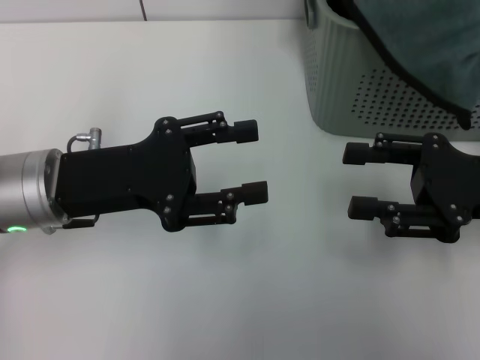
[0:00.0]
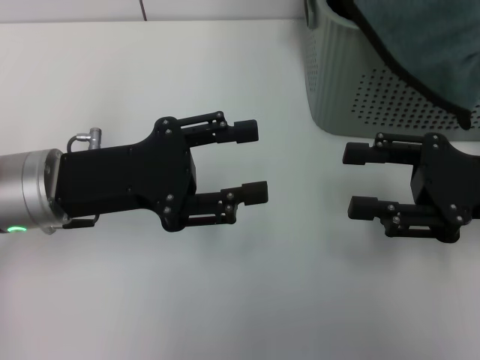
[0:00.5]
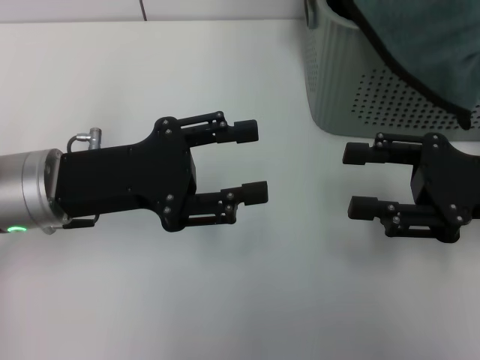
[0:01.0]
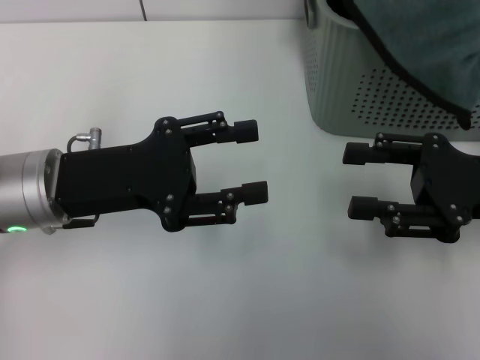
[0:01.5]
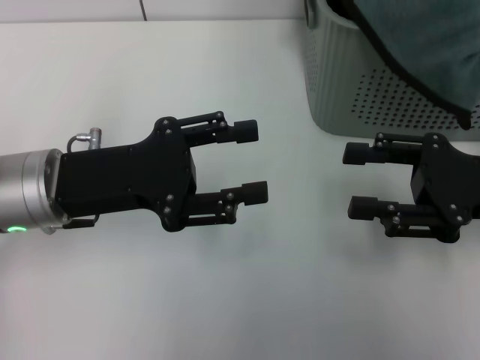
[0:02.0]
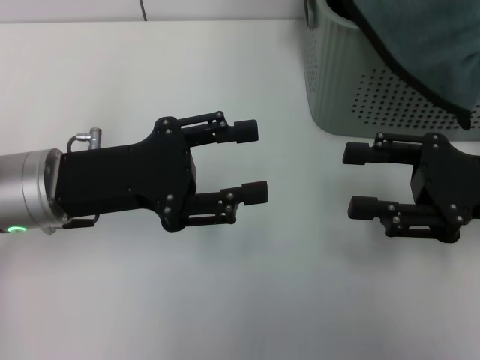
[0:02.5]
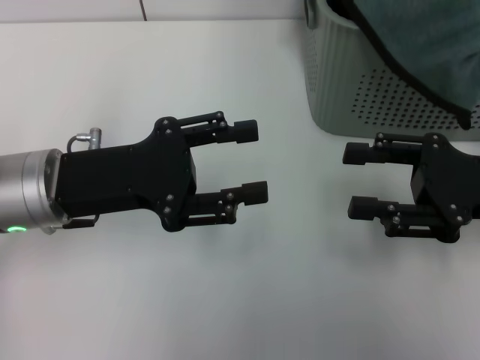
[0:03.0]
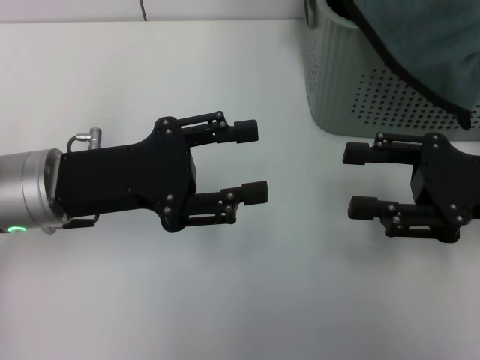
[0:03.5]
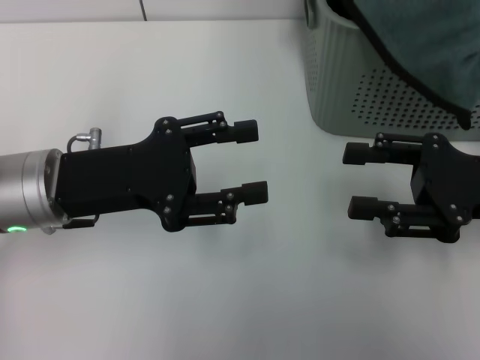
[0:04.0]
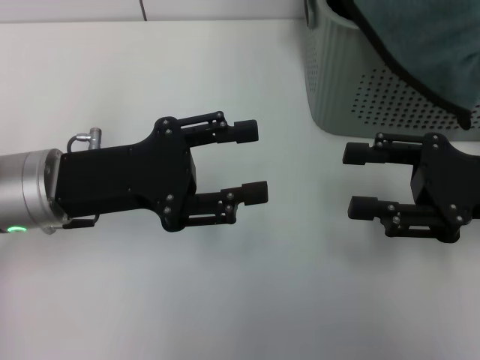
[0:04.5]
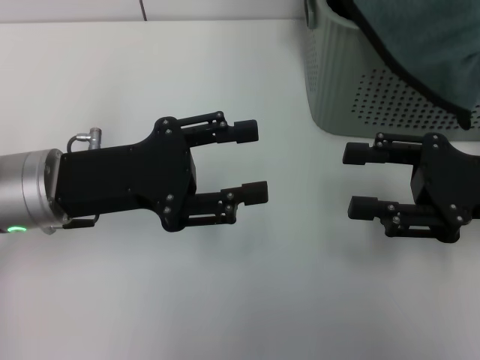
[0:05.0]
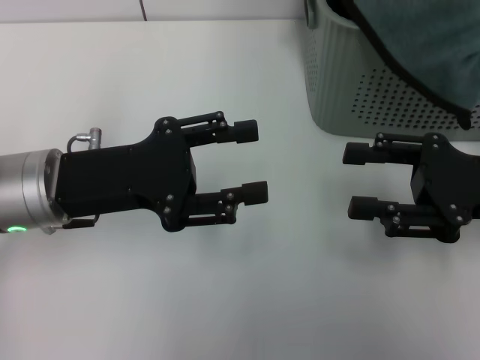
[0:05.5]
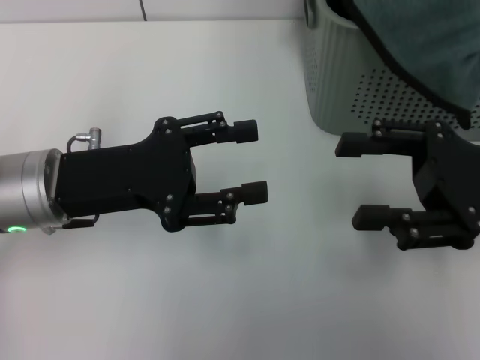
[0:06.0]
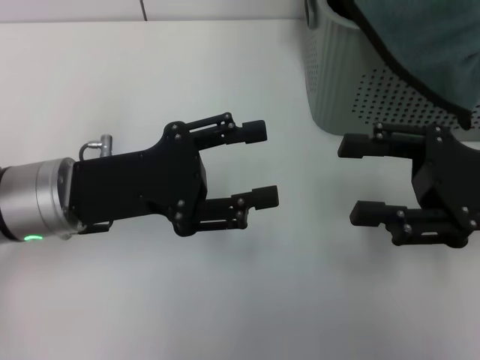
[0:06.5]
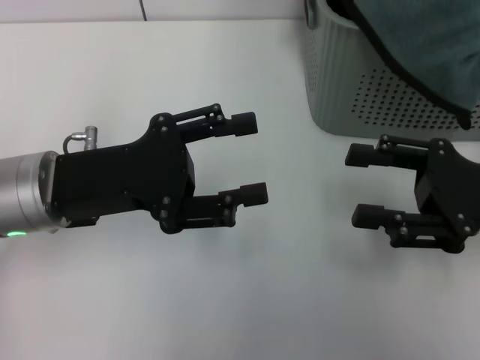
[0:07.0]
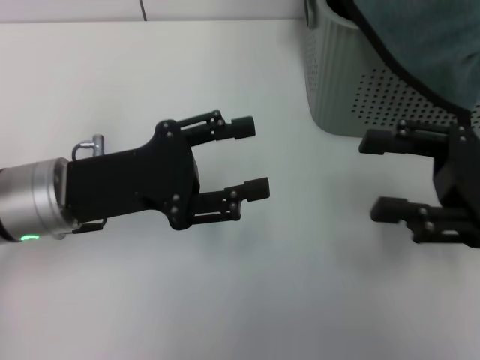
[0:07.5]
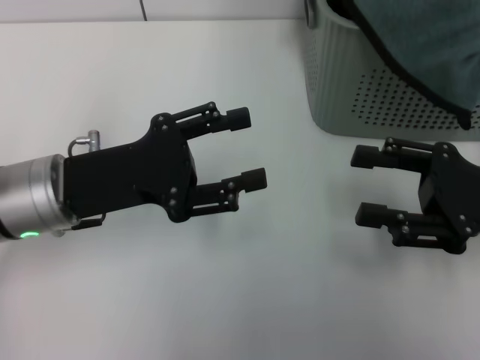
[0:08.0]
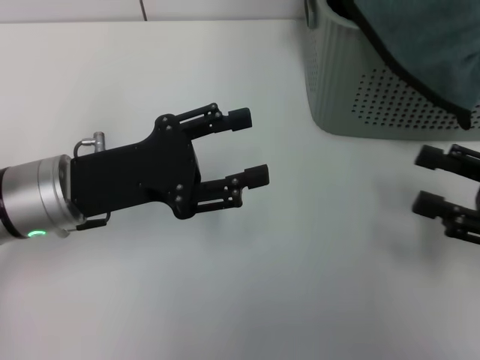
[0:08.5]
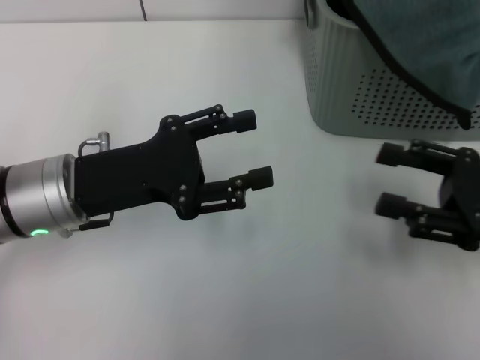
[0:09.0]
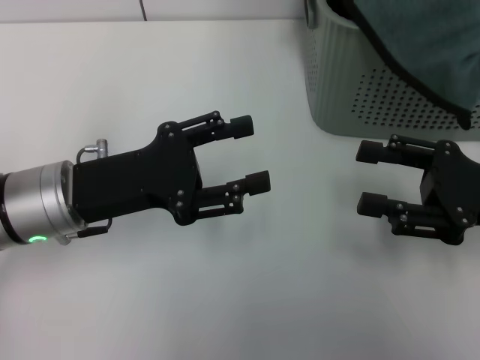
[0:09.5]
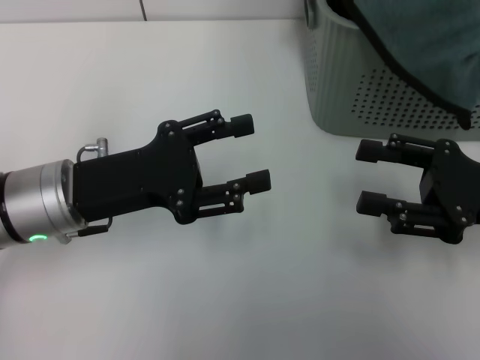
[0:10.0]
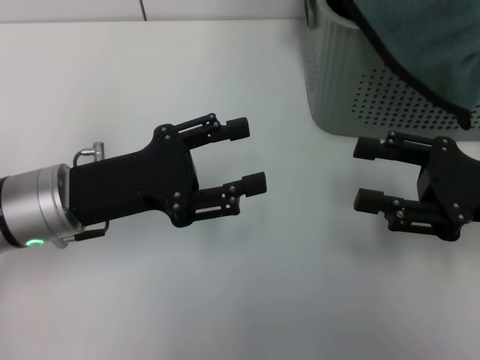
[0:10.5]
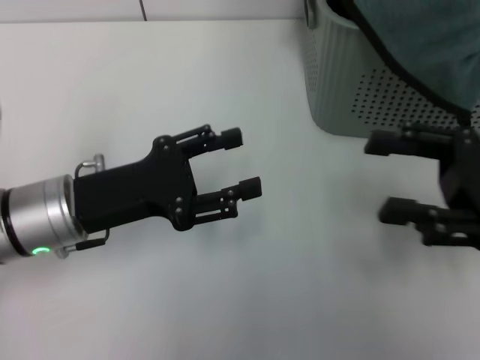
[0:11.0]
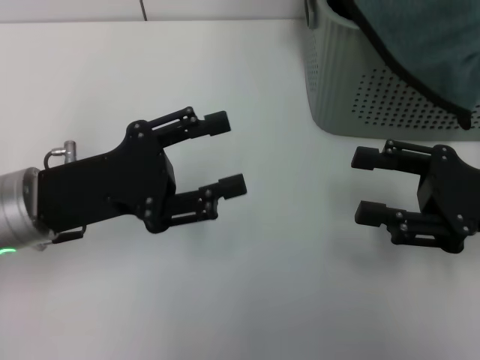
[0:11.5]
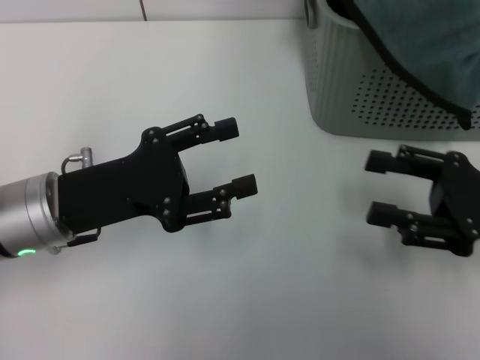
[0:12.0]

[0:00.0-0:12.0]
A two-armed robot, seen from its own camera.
Task of the whole recording: pick up the towel from the storage box and lay it flat on the table.
0:00.0 to 0:04.0: Both grippers stay put.
0:04.0 to 0:08.0: There are only small adjustments of the grippers.
0:08.0 to 0:12.0: The grippers make only small movements.

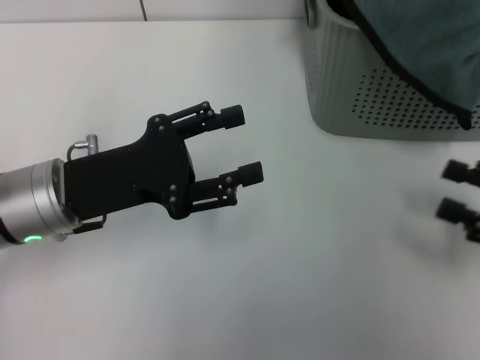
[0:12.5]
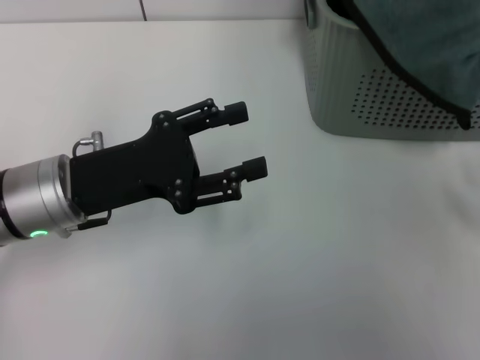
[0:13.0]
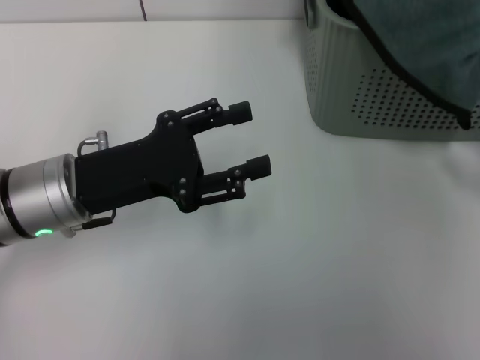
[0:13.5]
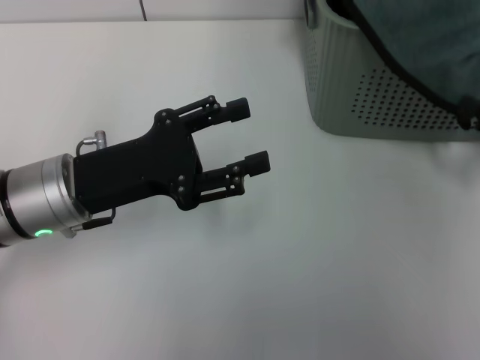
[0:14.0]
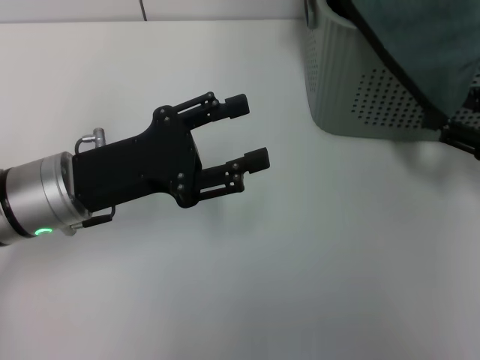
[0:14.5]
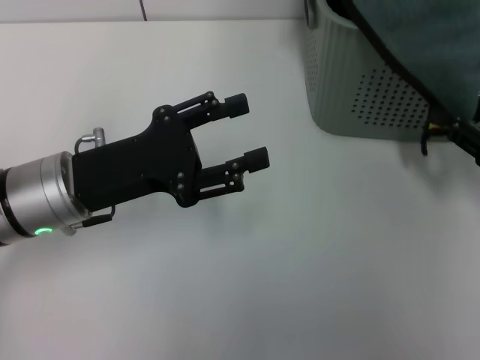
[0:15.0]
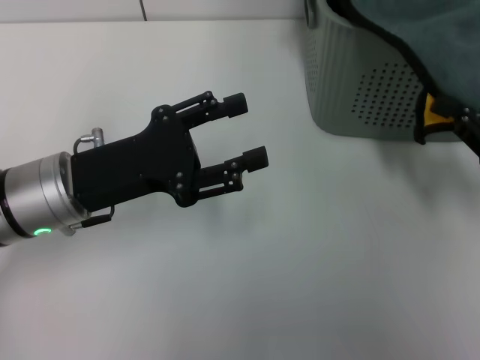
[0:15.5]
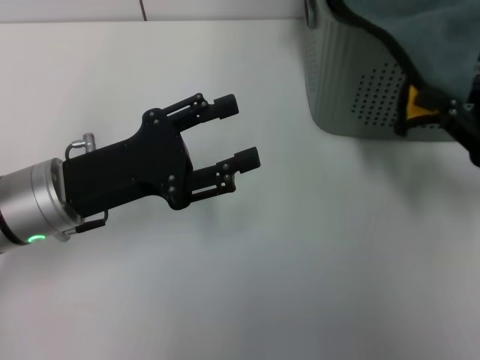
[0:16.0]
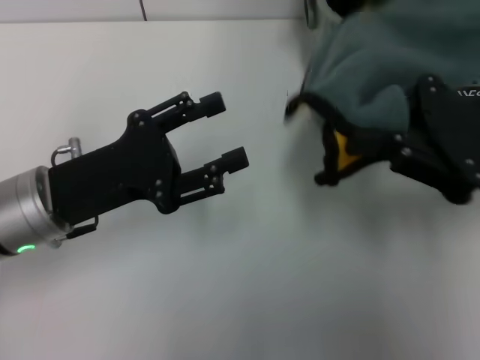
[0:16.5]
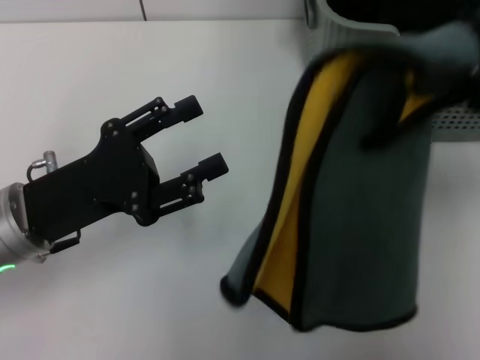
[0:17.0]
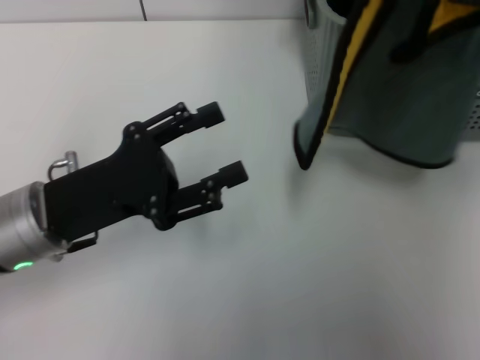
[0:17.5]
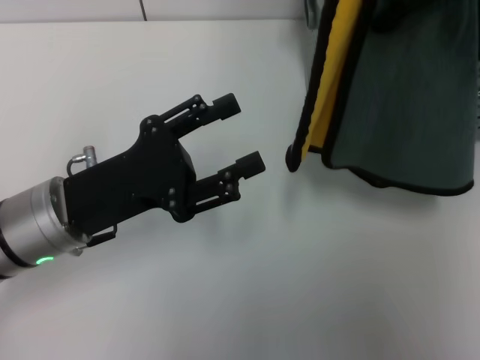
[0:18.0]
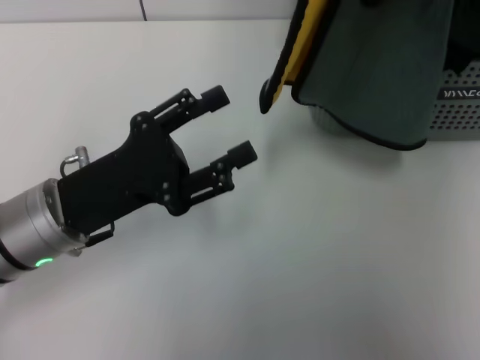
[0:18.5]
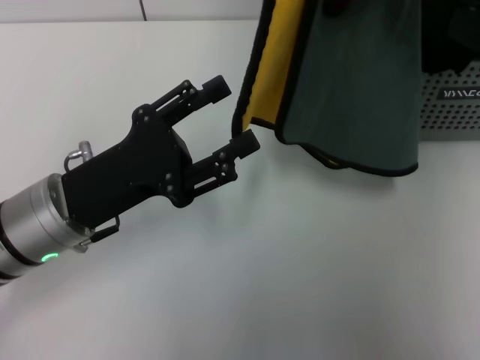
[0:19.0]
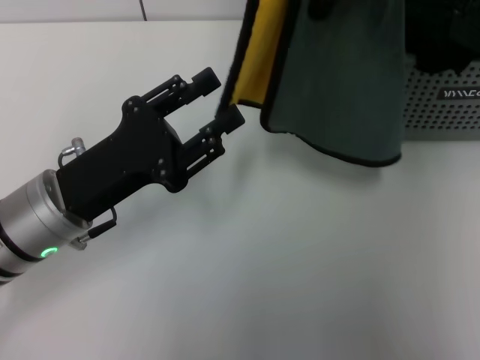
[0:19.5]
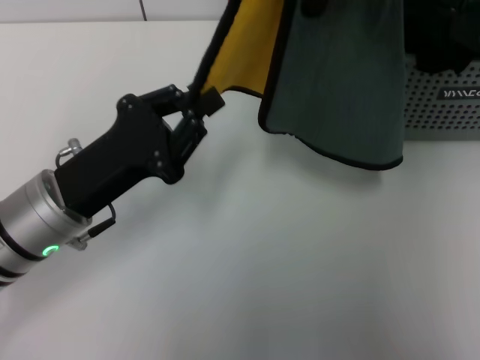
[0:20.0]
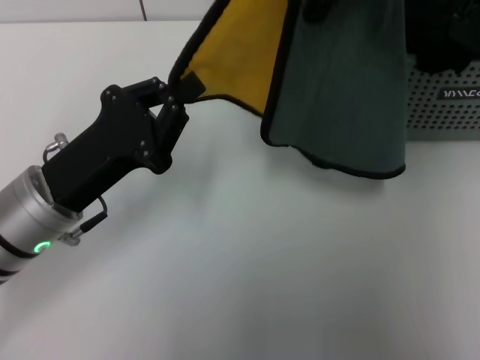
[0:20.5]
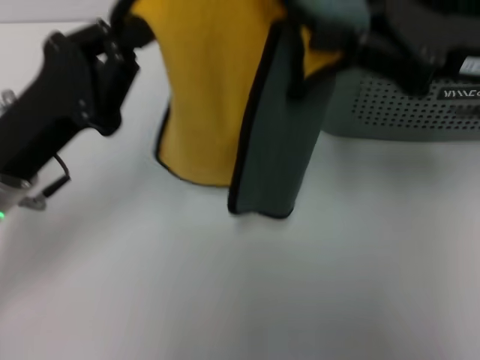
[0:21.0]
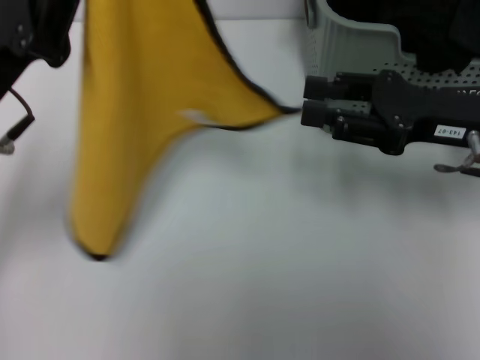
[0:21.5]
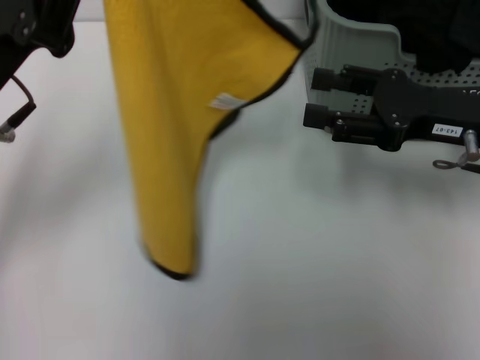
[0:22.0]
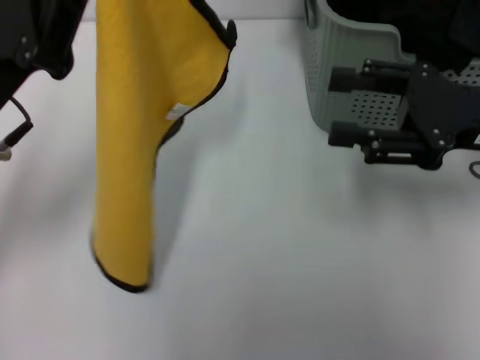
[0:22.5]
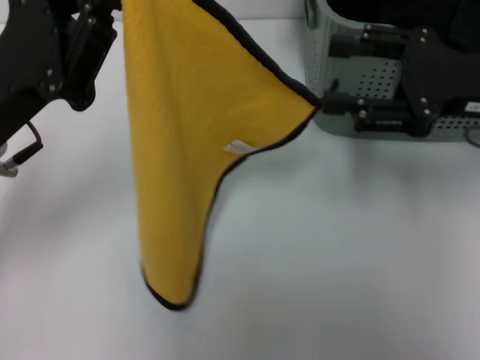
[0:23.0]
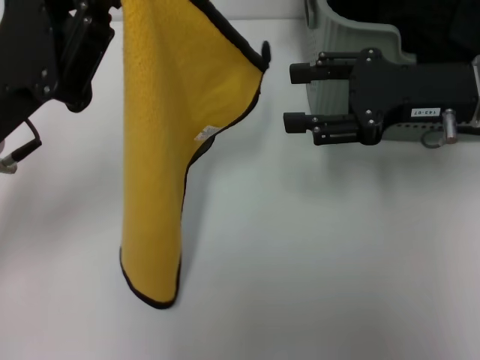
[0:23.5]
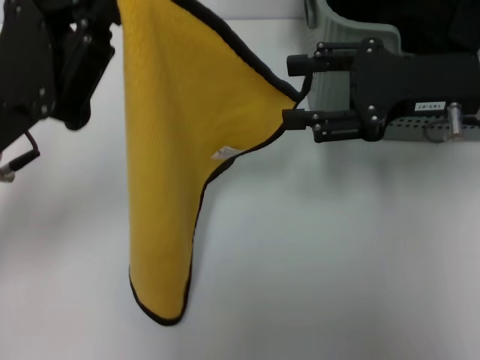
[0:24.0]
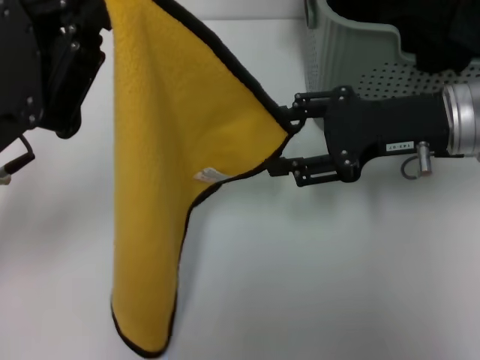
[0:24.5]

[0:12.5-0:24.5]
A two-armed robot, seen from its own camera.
Task of the whole recording: pick up the towel from the storage box and lay it flat on the table.
Step, 0:12.5 to 0:15.0: Pick up a towel with the right gripper.
Step, 0:15.5 to 0:19.5: Spread the towel flat with the right gripper.
0:12.5 to 0:14.5: The right gripper heads forward, covering some 10 cm.
0:14.5 to 0:16.5: The right gripper is displaced to the left and upward by some 15 cm, and closes its fingers.
0:16.5 to 0:18.5: The right gripper heads upward, covering roughly 5 cm.
0:18.5 to 0:20.5: The left gripper closes.
0:20.5 to 0:22.5: The right gripper moves downward, approximately 5 cm, and opens its fingers. The left gripper goes some 10 cm upward.
0:22.5 to 0:24.5: The right gripper goes approximately 5 cm to the left.

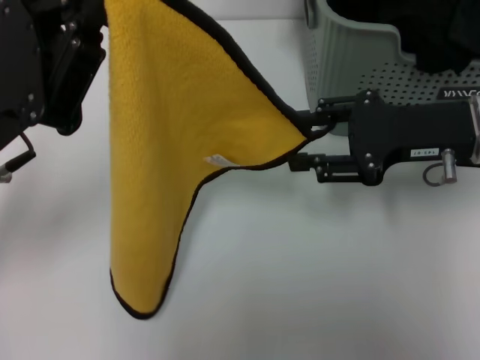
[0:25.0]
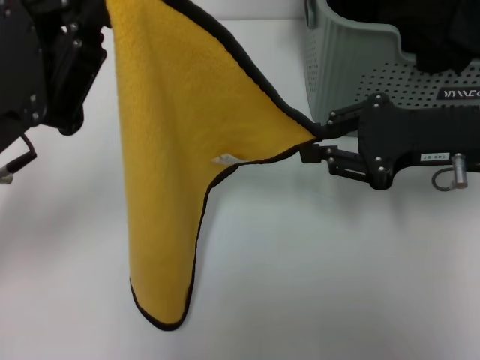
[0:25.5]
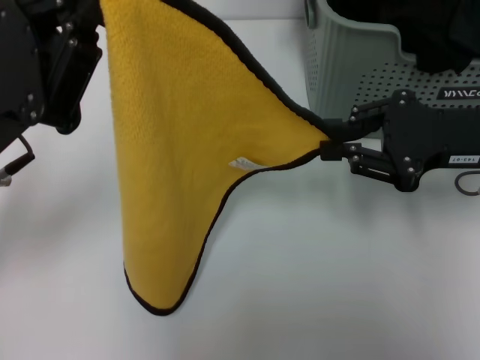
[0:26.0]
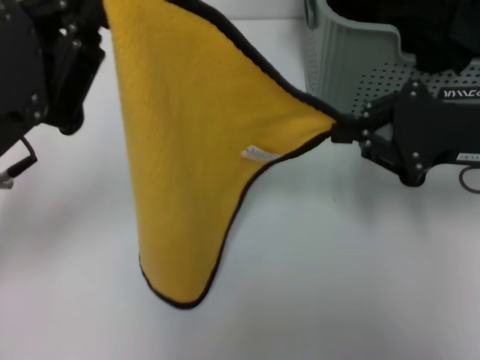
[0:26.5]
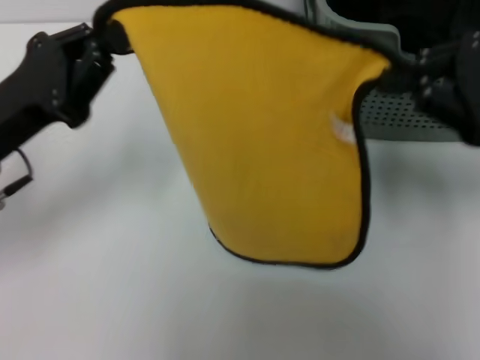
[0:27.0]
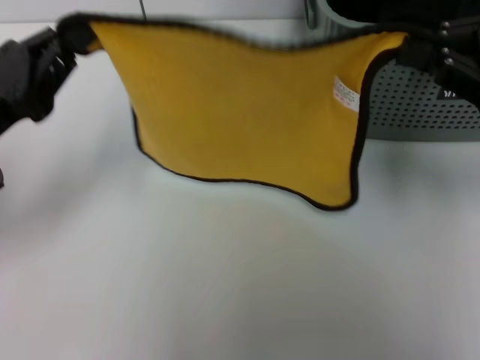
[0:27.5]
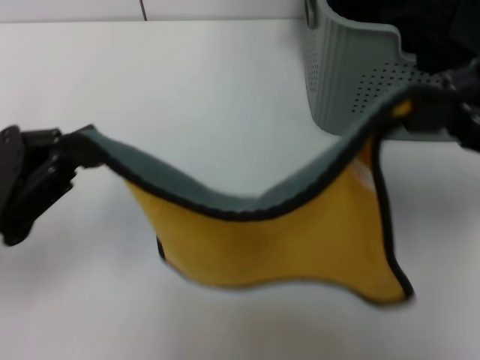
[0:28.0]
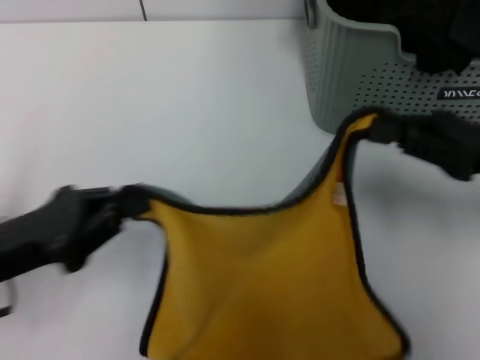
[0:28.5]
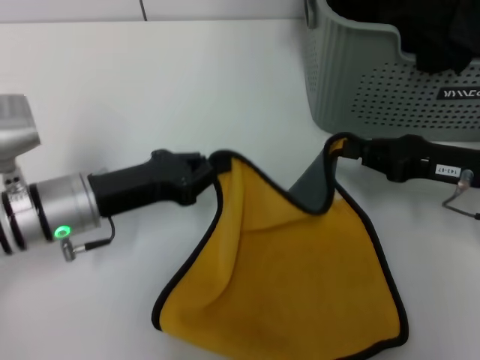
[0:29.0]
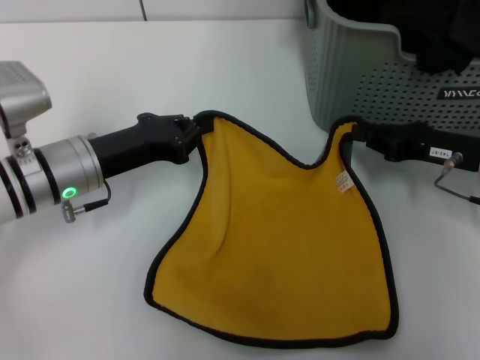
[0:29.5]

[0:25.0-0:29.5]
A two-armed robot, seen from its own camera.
Task of the whole recording: pick up the towel from the storage box and lay it flat on the table.
0:25.0 to 0:27.0: The right gripper goes some 5 cm to the right, and closes its fingers.
0:27.0 to 0:29.5: The right gripper moves downward, approximately 10 cm; the left gripper heads downward and forward, covering about 10 cm.
